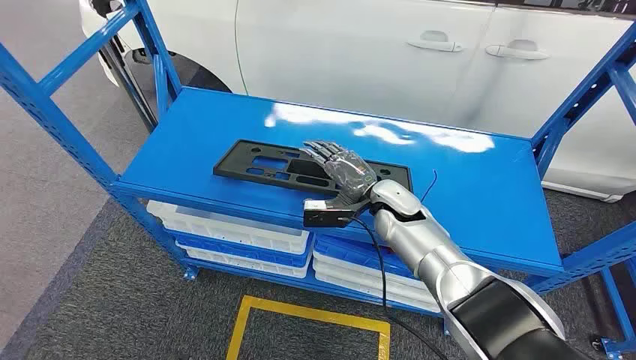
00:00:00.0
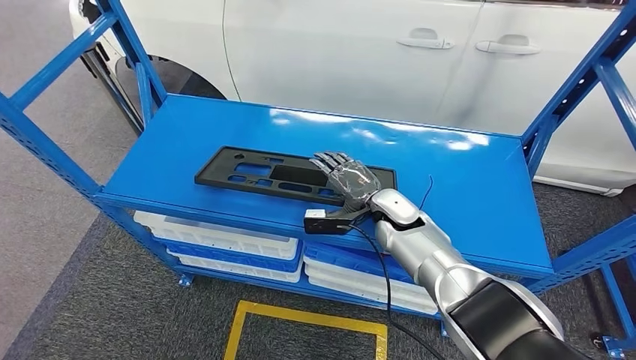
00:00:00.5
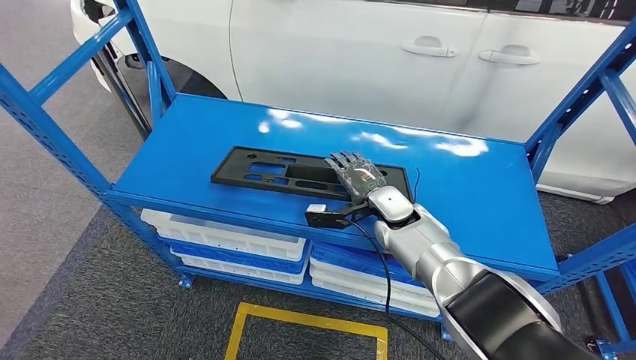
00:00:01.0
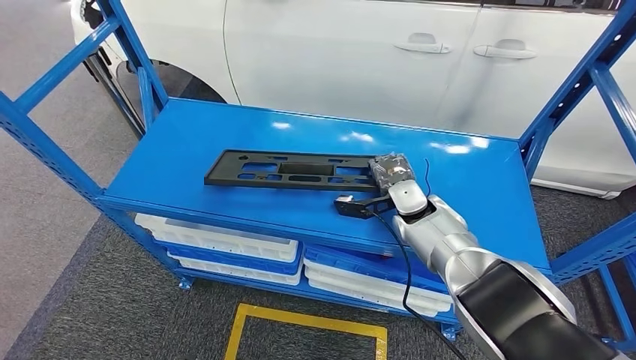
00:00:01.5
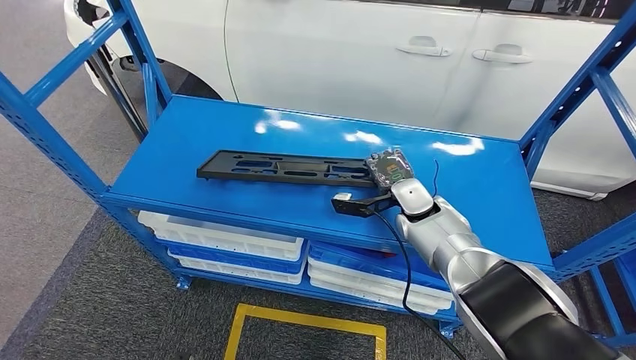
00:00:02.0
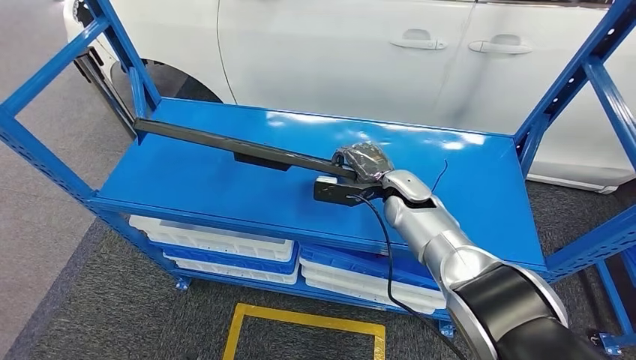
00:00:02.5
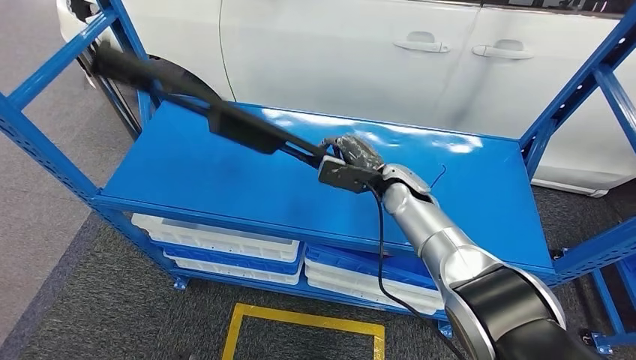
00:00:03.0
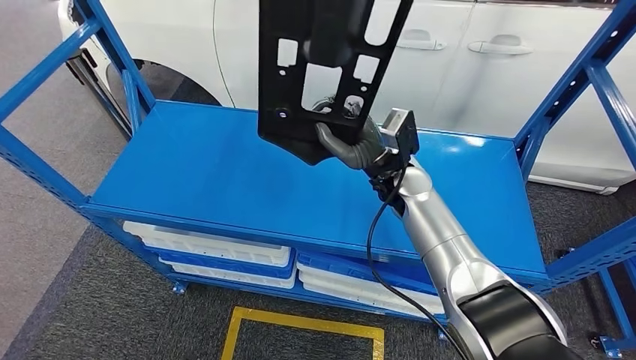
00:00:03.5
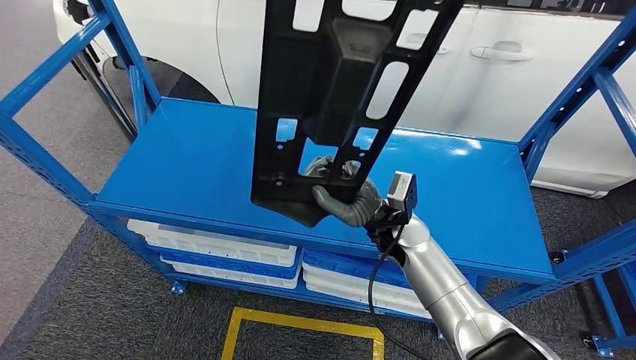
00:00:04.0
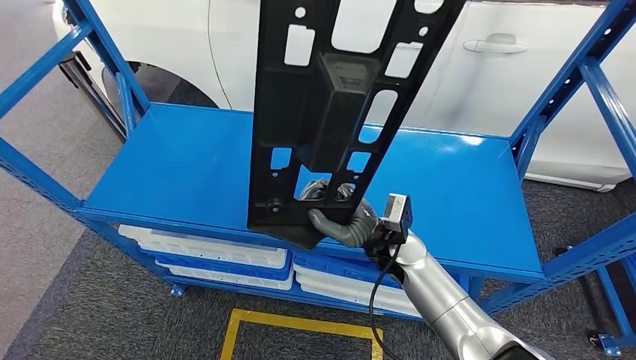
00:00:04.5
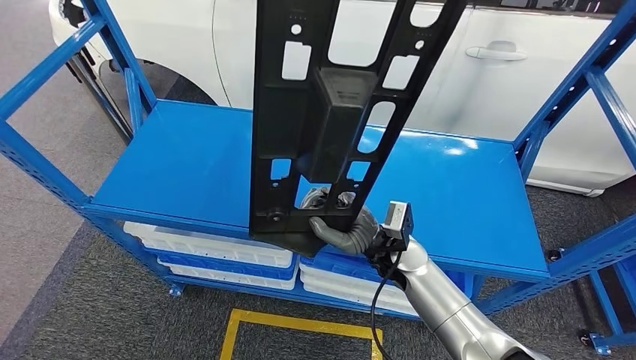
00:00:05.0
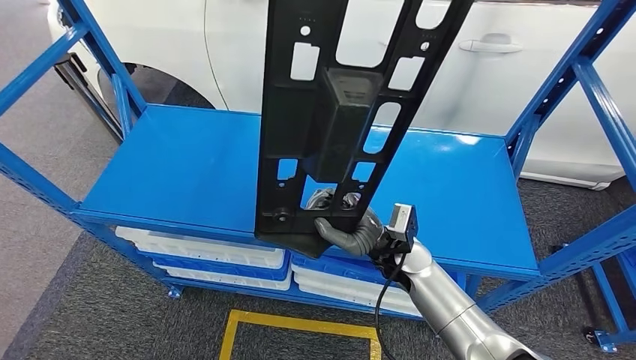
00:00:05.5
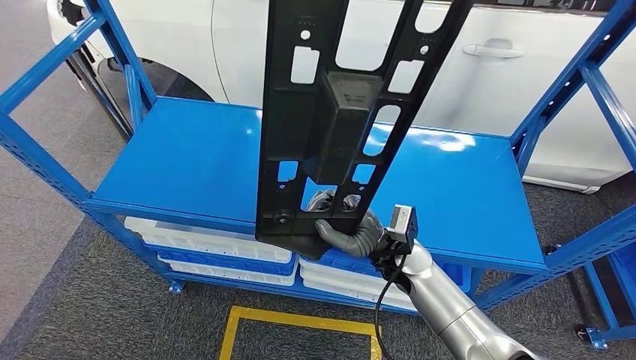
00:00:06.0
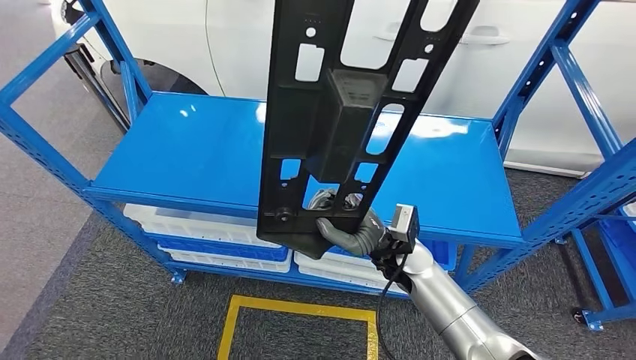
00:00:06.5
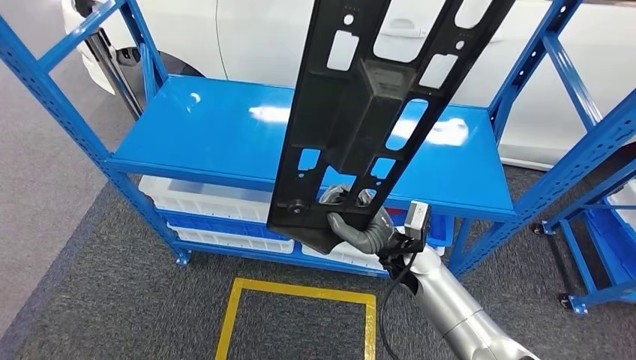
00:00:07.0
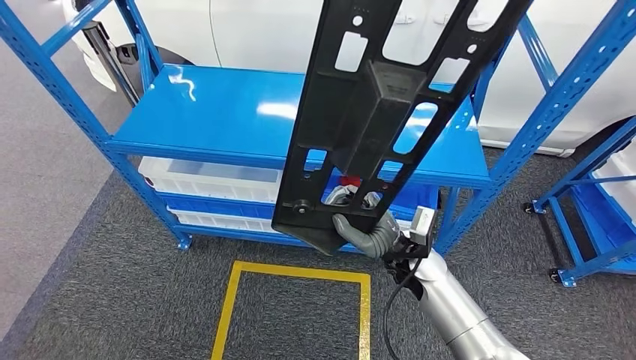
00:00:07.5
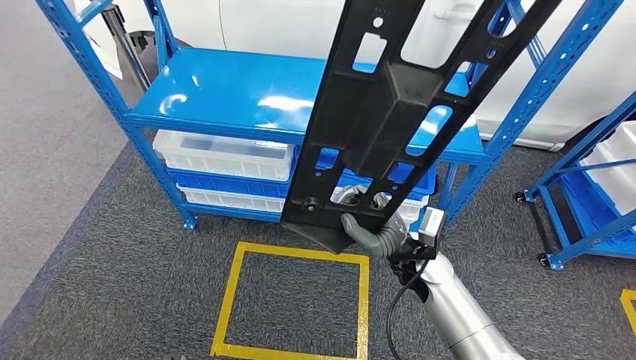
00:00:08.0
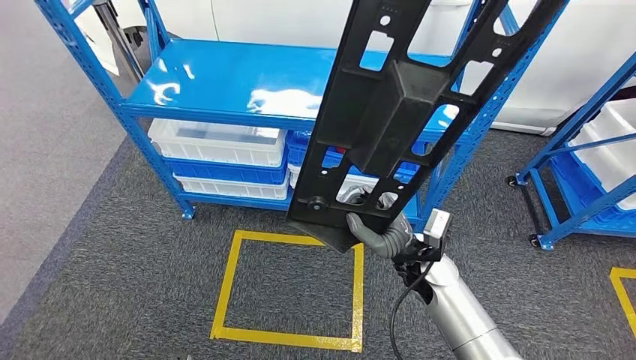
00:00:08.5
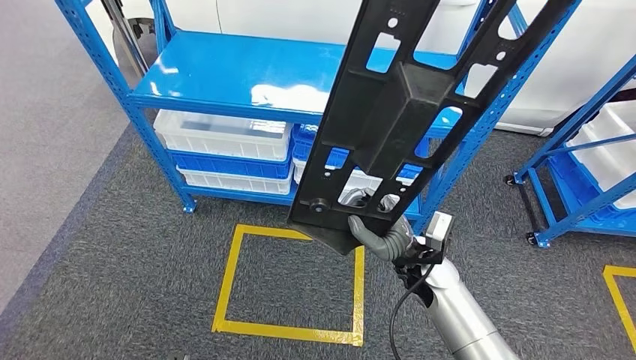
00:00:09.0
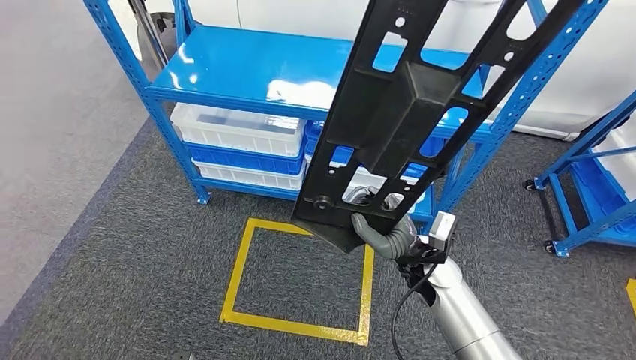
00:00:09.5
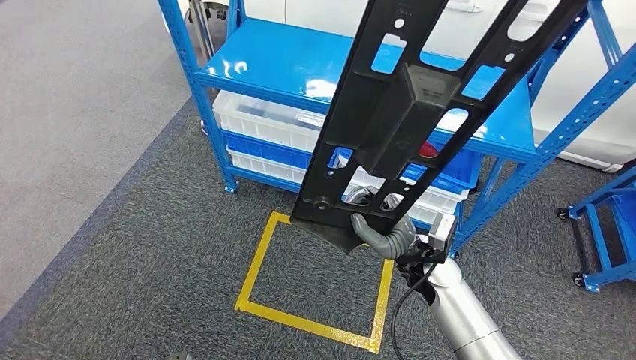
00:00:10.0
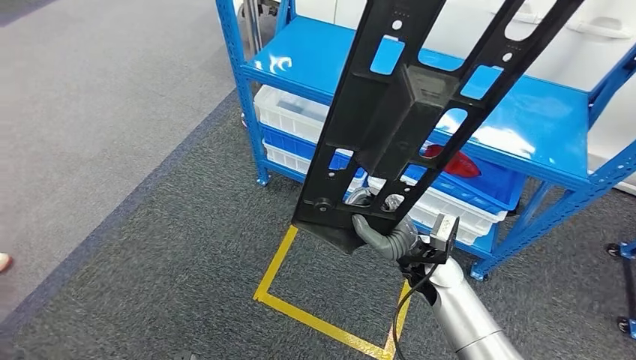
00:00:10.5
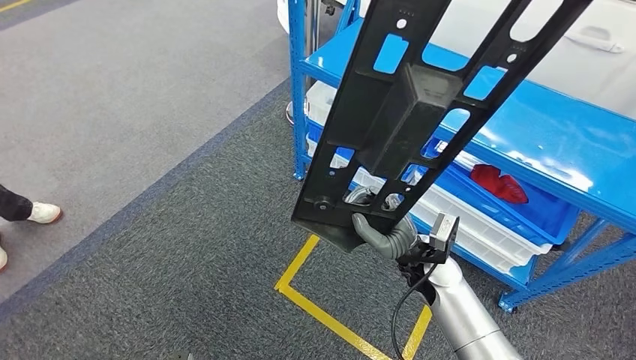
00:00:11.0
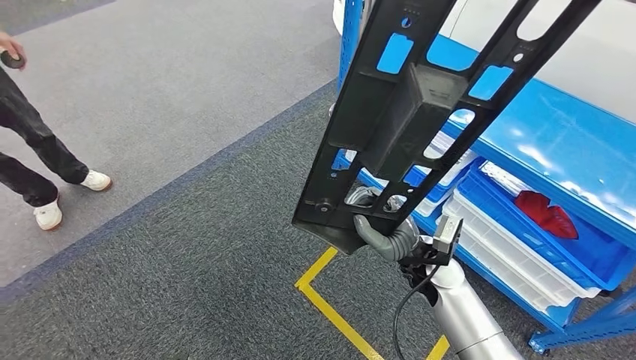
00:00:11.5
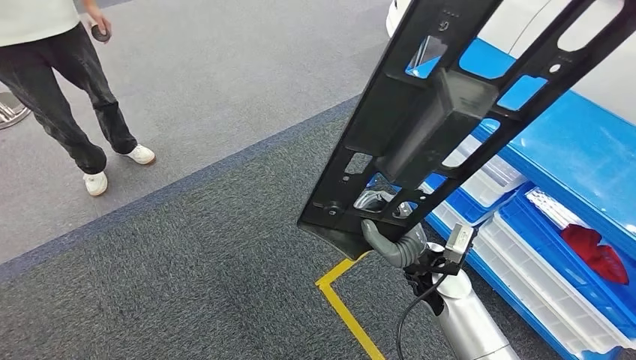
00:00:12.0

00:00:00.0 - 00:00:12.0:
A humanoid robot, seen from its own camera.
Step, 00:00:00.0 - 00:00:06.0: Pick up the large material from the shelf.

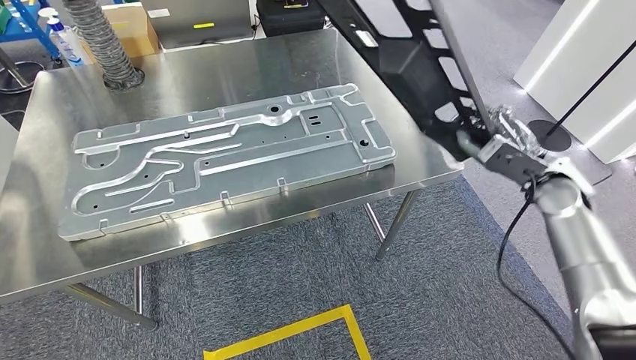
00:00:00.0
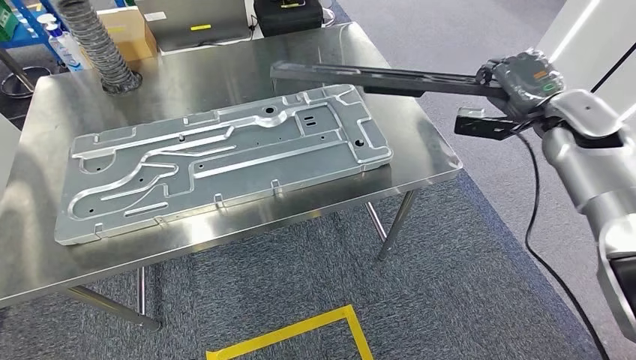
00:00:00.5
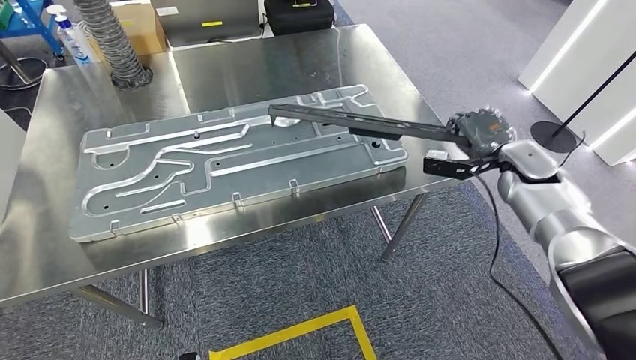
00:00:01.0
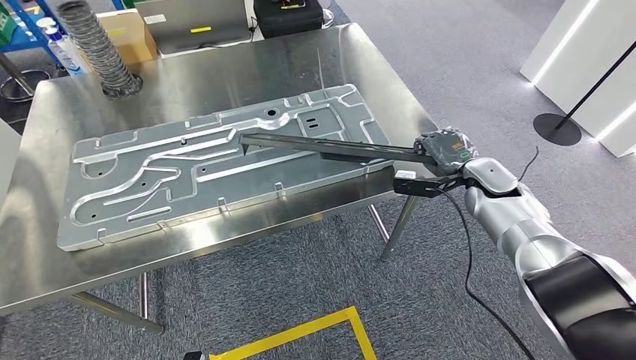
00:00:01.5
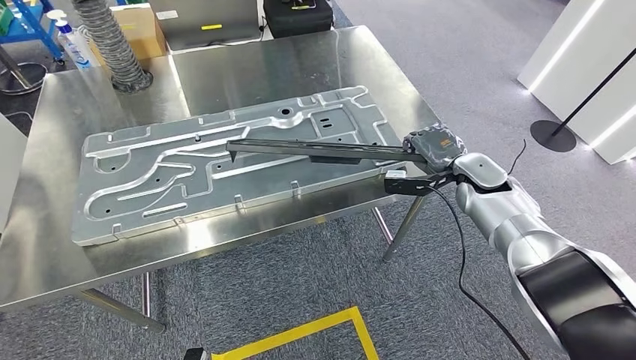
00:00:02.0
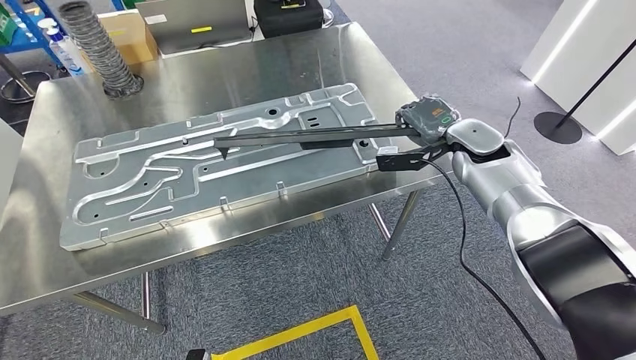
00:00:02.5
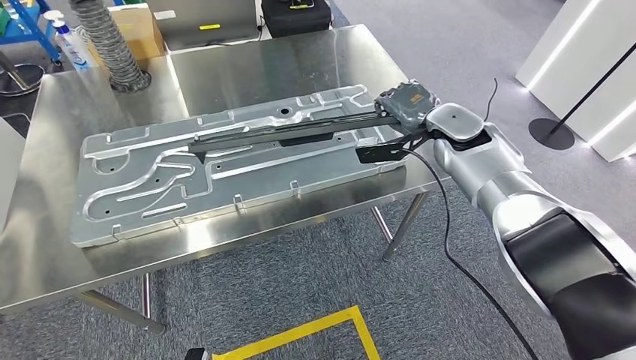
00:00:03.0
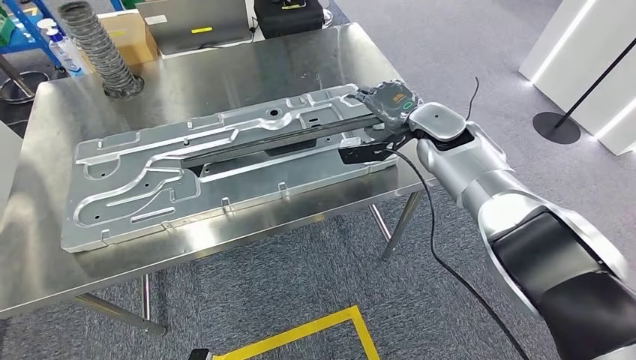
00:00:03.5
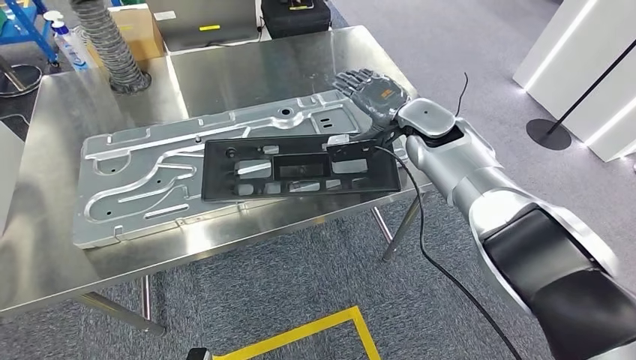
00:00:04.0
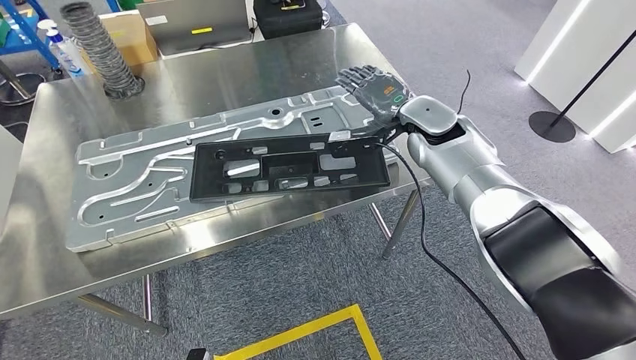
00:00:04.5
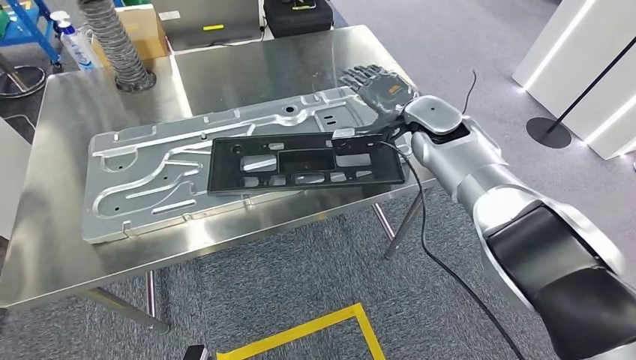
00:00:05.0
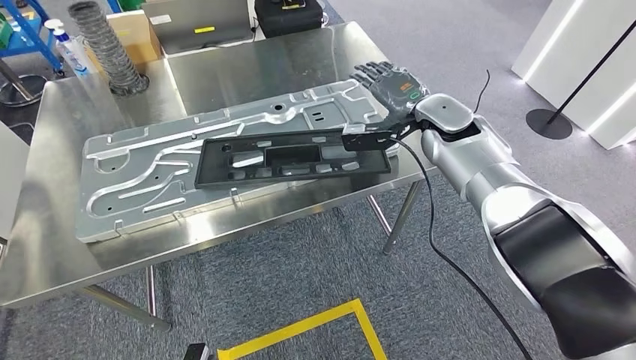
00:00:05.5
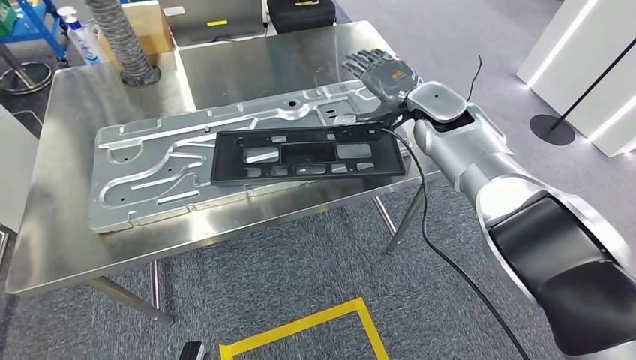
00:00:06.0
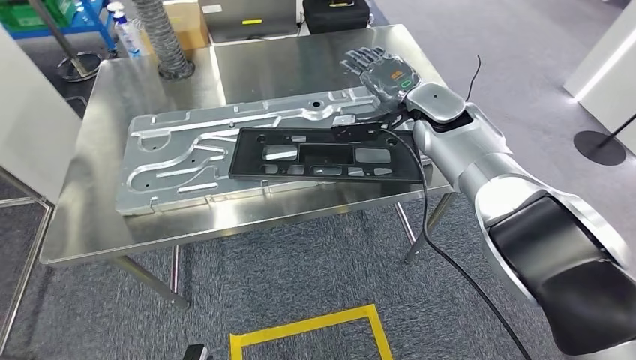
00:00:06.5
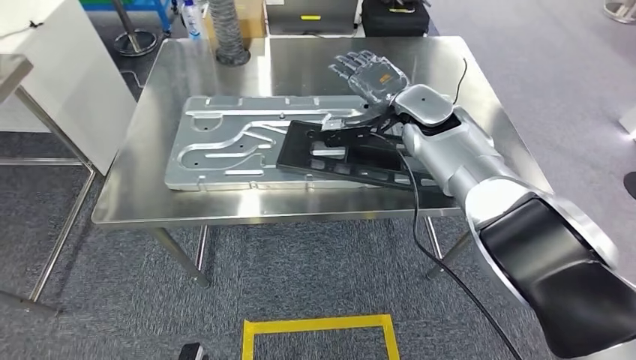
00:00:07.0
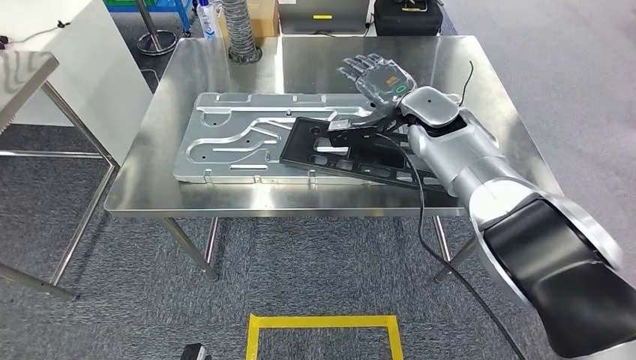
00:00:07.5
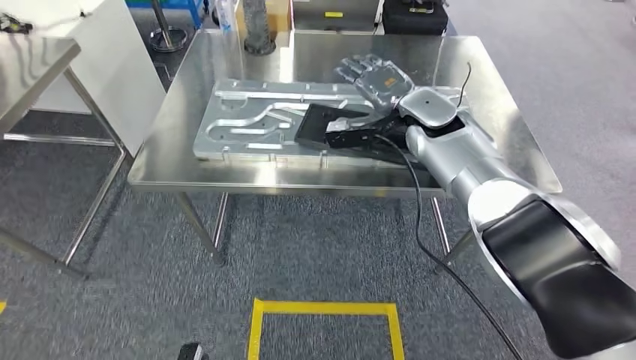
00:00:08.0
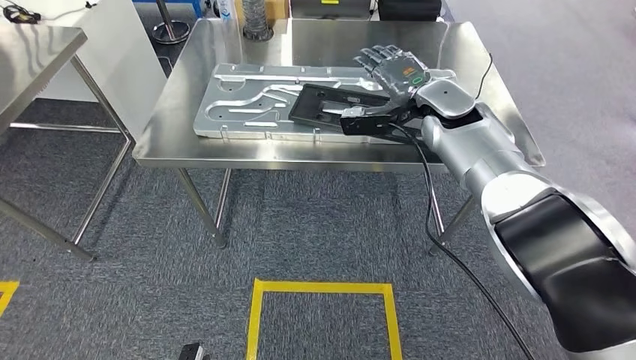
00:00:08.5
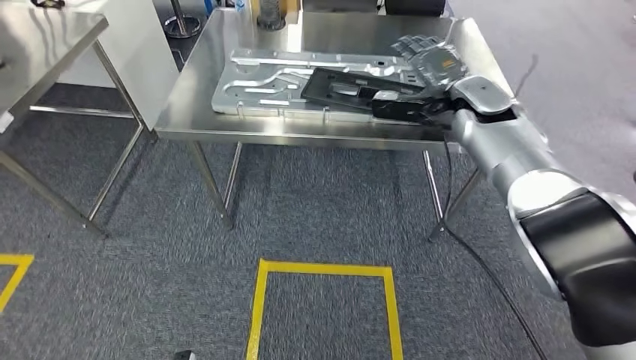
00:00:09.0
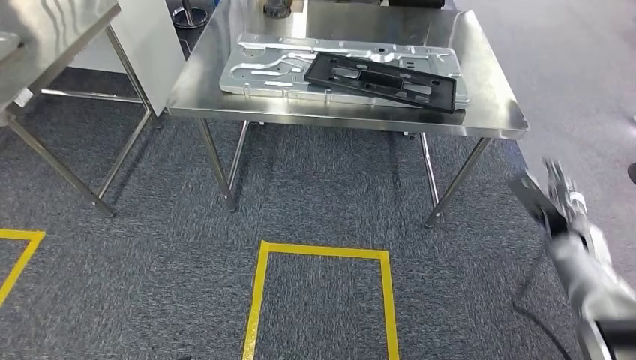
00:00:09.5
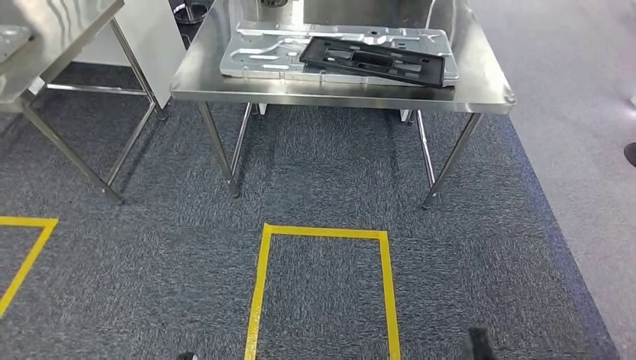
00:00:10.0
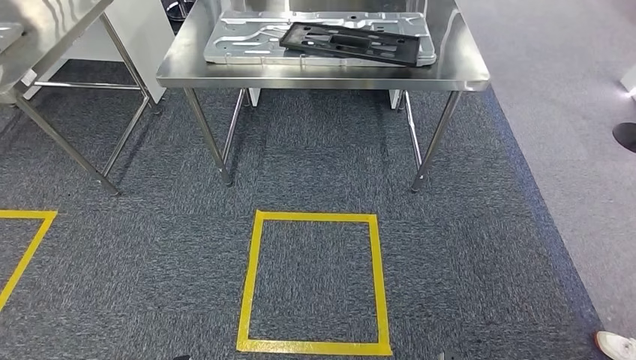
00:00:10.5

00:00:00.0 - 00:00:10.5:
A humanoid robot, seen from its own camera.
Step, 00:00:01.0 - 00:00:05.0: Insert the large material into the corresponding slot on the workbench.
Step, 00:00:06.5 - 00:00:10.5: Move to the initial position of the shelf.
